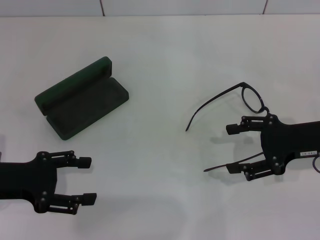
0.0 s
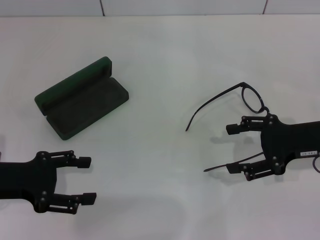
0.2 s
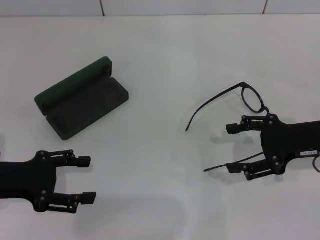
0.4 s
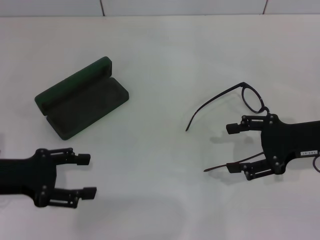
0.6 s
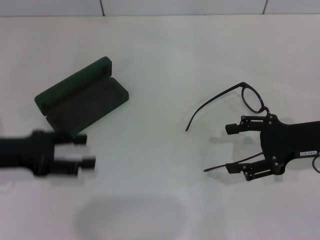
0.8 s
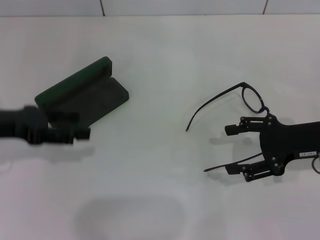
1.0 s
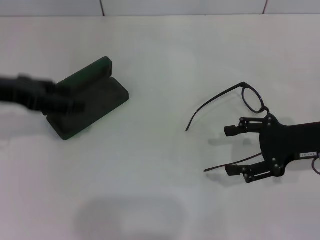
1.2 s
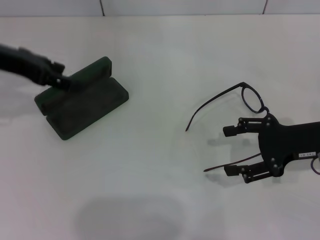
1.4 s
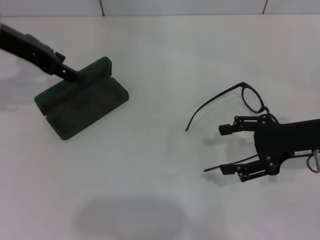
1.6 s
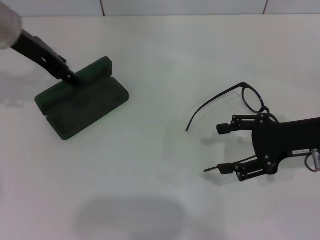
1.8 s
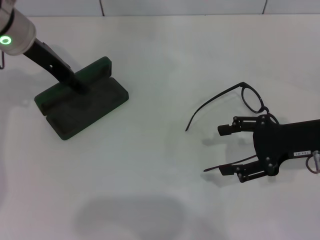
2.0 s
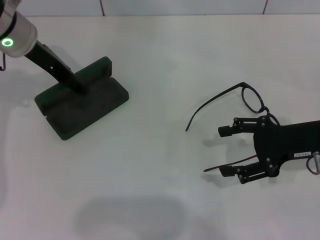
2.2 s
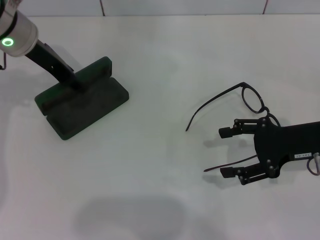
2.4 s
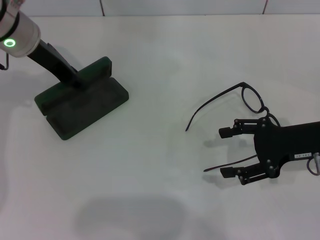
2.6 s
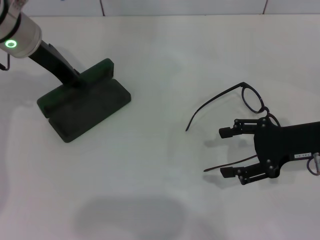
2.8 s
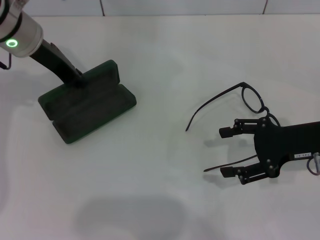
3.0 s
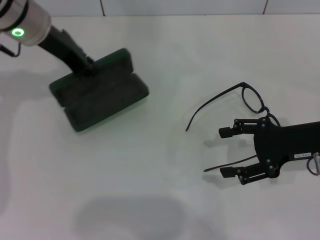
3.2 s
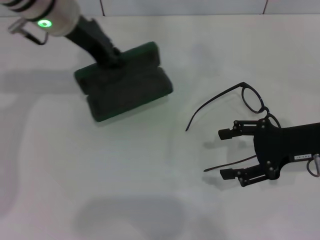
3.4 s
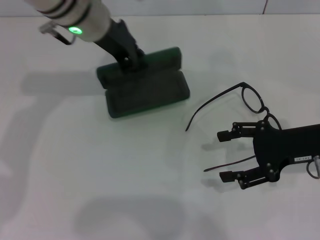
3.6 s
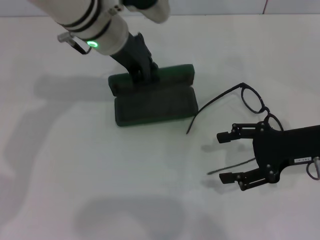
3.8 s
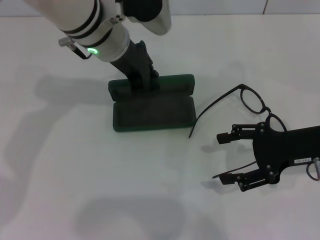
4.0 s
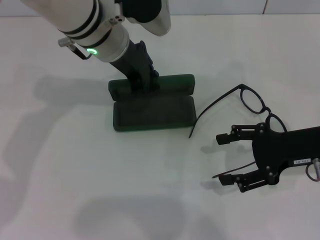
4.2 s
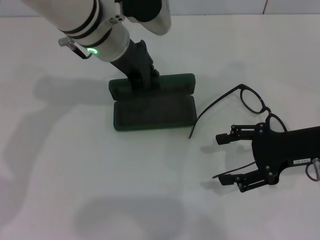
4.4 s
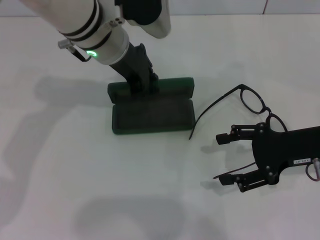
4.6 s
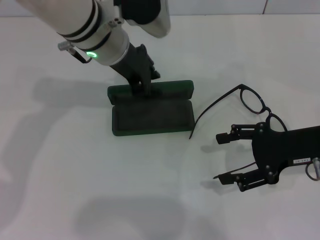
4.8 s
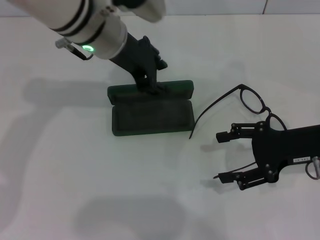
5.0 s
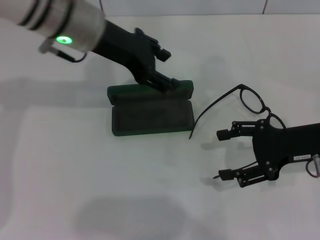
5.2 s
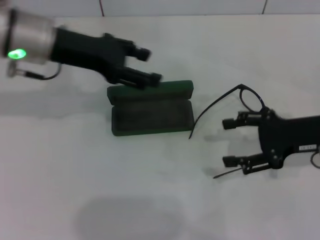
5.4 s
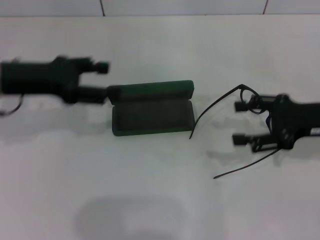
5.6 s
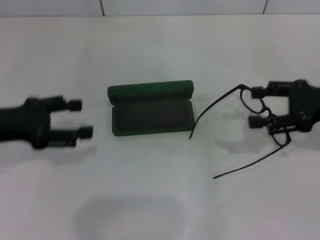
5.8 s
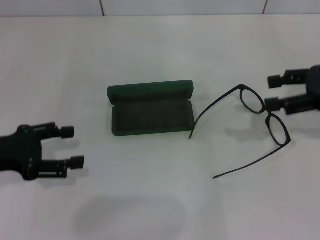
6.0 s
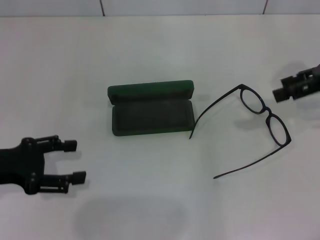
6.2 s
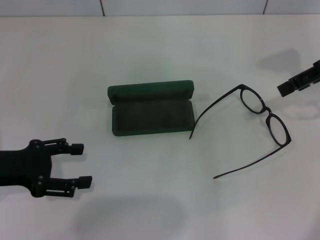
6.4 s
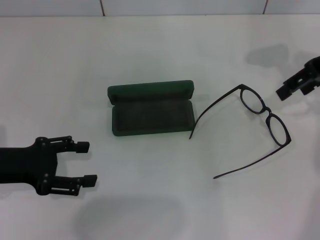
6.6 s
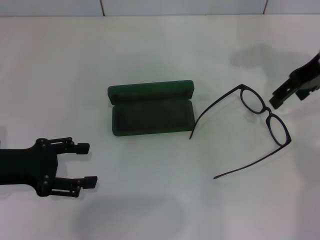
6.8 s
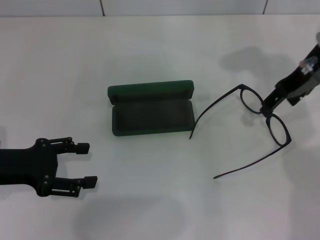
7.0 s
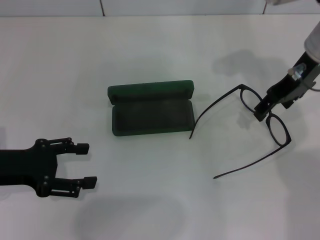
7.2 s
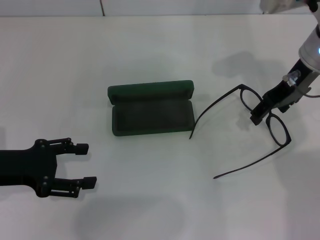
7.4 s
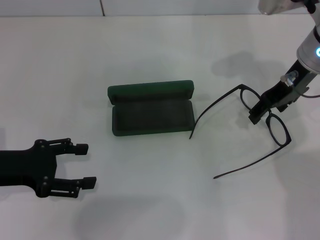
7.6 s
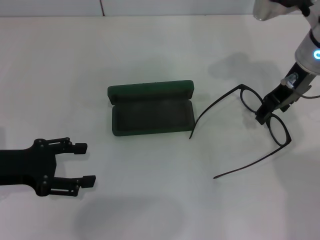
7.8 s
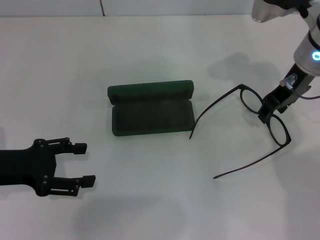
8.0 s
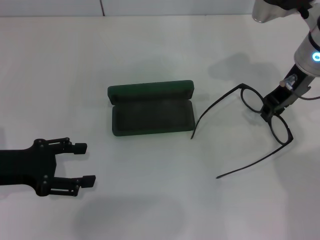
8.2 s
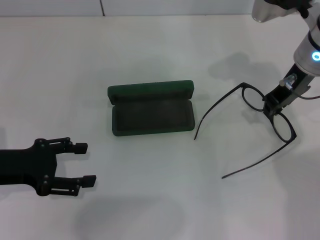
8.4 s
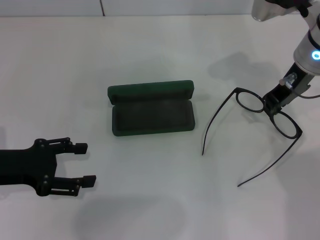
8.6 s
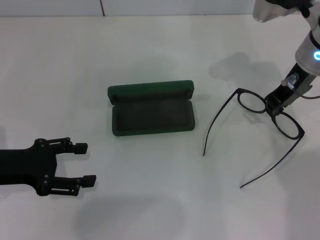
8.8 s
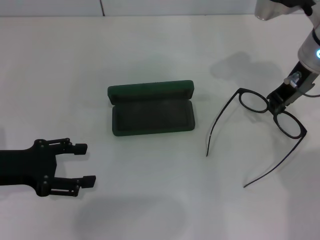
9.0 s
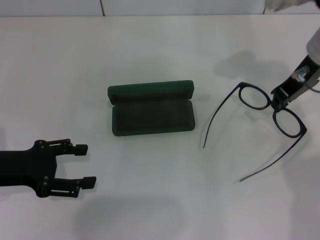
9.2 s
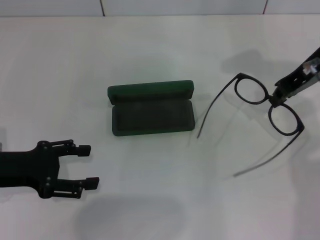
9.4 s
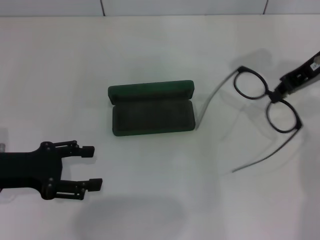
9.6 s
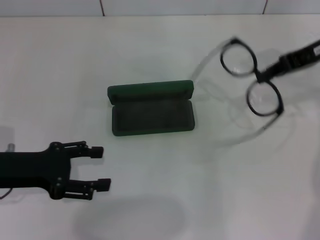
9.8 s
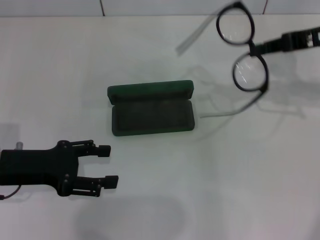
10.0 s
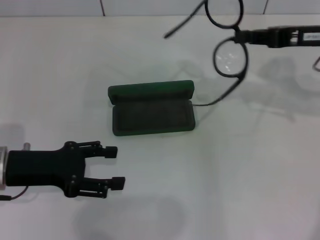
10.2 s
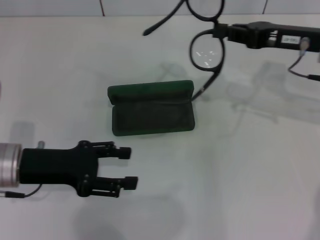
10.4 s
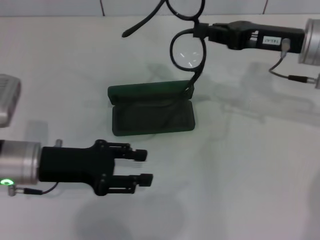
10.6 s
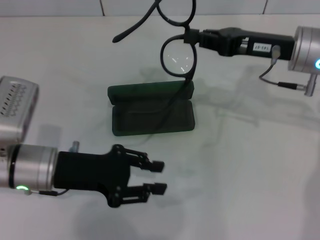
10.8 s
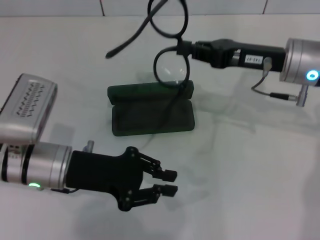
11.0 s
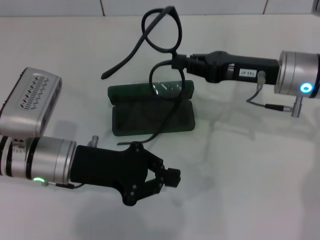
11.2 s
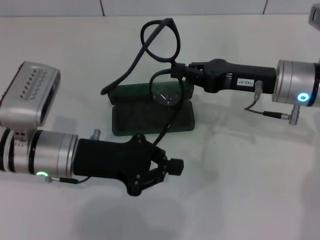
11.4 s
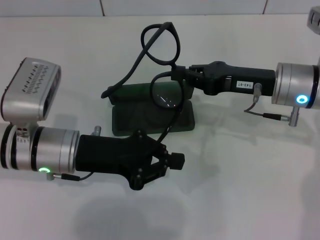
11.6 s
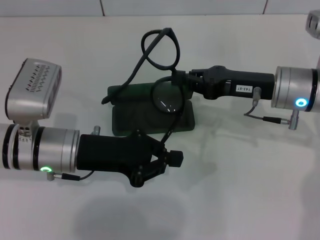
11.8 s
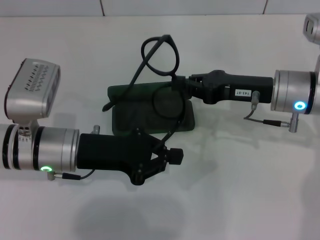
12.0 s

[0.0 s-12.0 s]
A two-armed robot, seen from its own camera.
Step, 0.0 to 2.6 s: Grab the glasses case with your left hand.
Step, 3.0 to 4.6 s: Place the glasses case in the center of the table with your left hand.
Step, 4.8 to 8.2 s: Grab the eyeglass frame with your right hand.
0.0 to 1.6 s: The left gripper shifts roughly 20 cm forward and upward.
1.6 to 3.0 s: The left gripper ends up about 5 cm from where it was, and closes up.
3.0 to 4.4 s: The left gripper goes some 10 cm to the right.
4.4 to 6.0 s: The right gripper travels upward and to the right by some 10 cm. Meanwhile the left gripper heads to the left and backward, covering some 25 cm, and opens its fingers.
6.0 to 7.6 s: The right gripper is displaced to the left and forward by roughly 15 cm.
7.6 to 9.0 s: The right gripper closes its fingers.
9.0 to 10.4 s: The left gripper travels to the right by roughly 5 cm.
10.4 to 12.0 s: The right gripper travels downward and to the left by some 10 cm. The left gripper is displaced to the right by some 5 cm, and closes up.

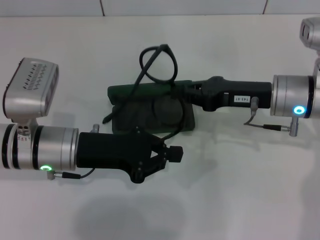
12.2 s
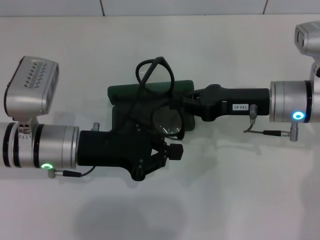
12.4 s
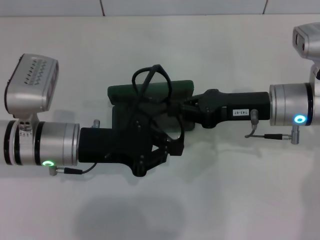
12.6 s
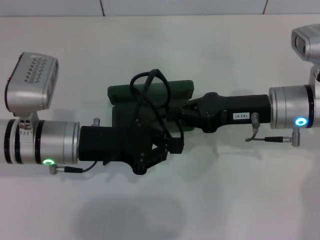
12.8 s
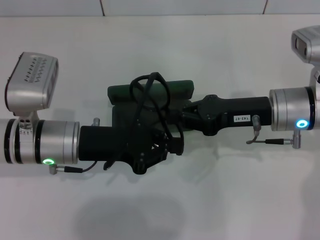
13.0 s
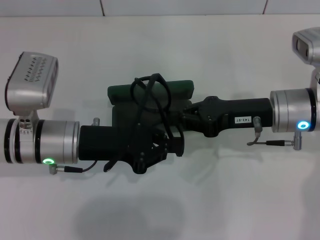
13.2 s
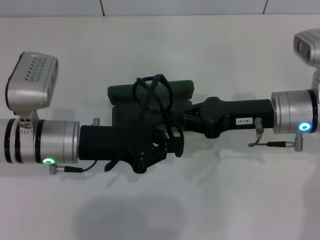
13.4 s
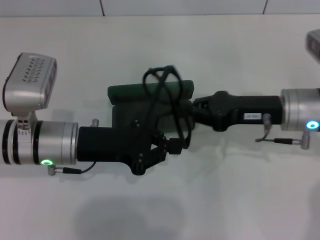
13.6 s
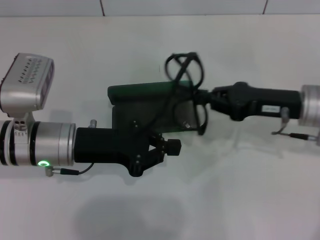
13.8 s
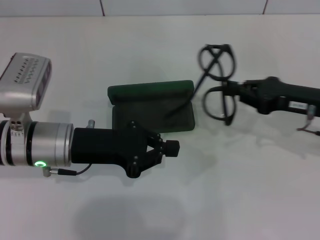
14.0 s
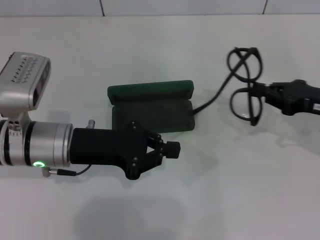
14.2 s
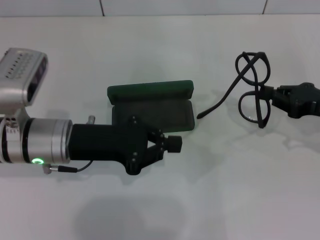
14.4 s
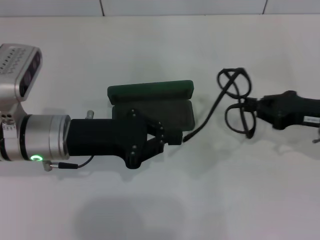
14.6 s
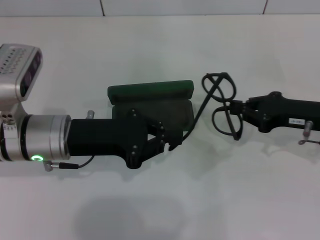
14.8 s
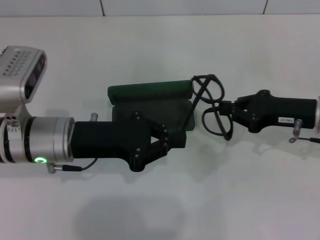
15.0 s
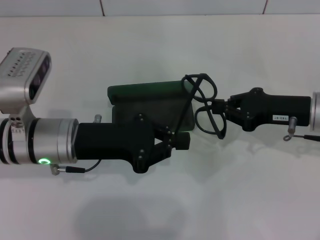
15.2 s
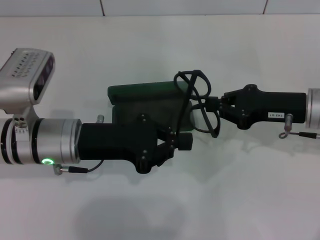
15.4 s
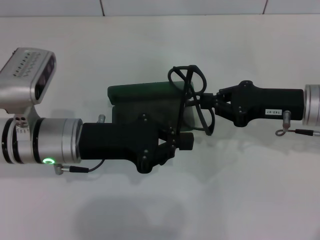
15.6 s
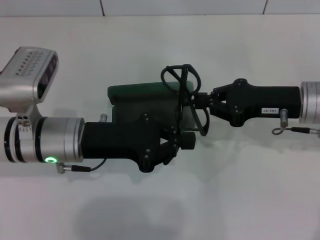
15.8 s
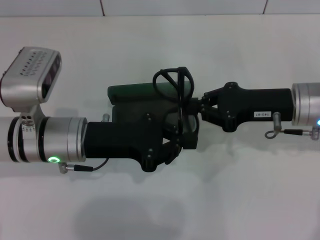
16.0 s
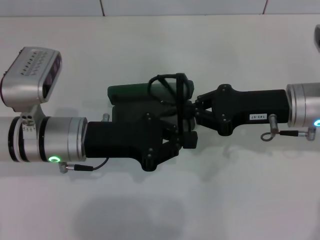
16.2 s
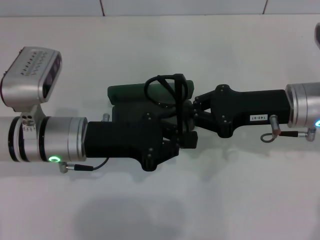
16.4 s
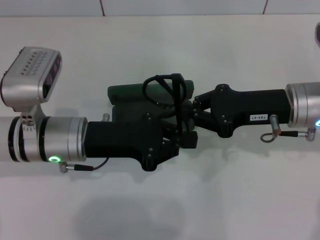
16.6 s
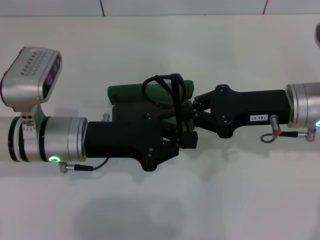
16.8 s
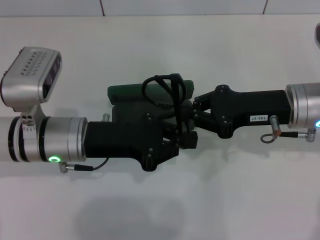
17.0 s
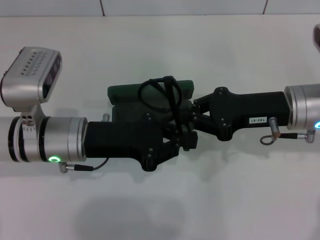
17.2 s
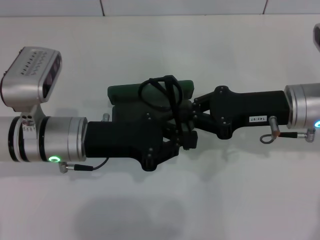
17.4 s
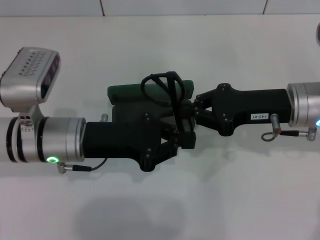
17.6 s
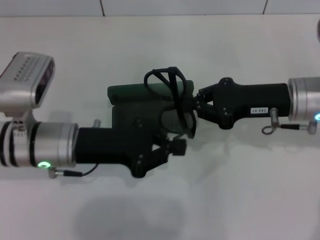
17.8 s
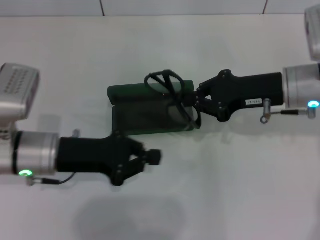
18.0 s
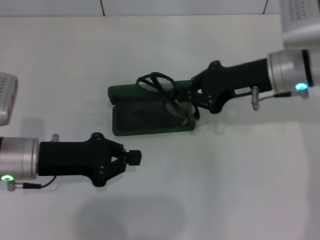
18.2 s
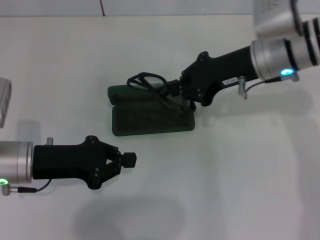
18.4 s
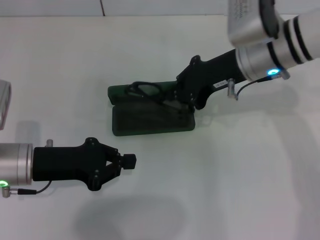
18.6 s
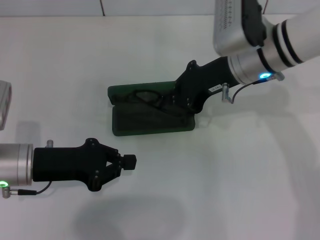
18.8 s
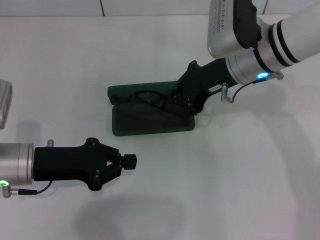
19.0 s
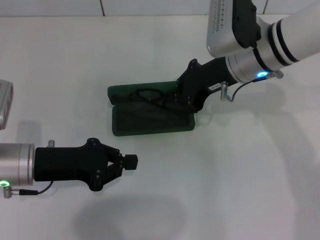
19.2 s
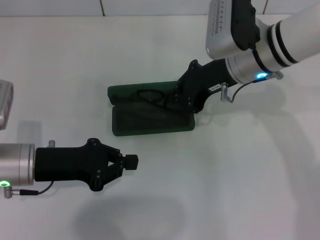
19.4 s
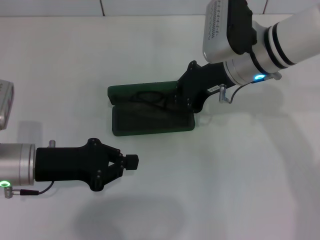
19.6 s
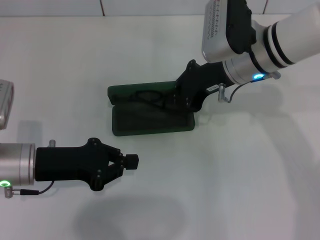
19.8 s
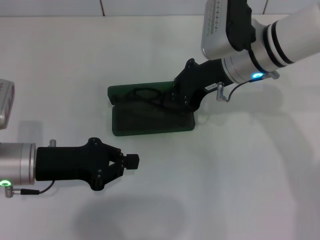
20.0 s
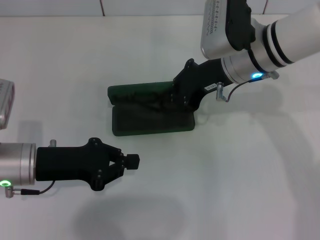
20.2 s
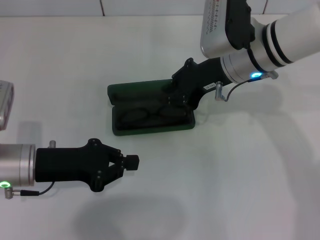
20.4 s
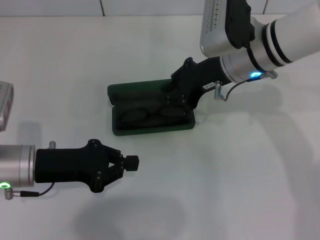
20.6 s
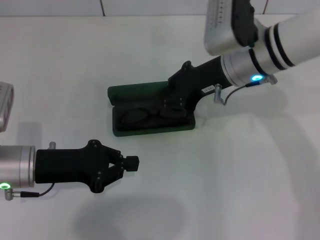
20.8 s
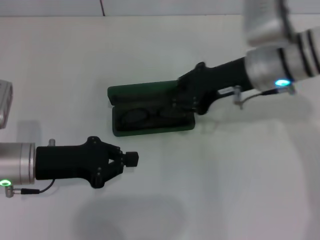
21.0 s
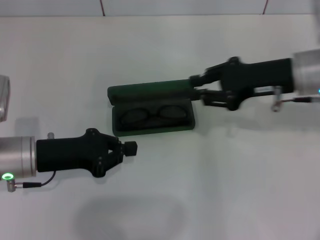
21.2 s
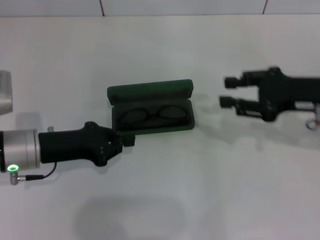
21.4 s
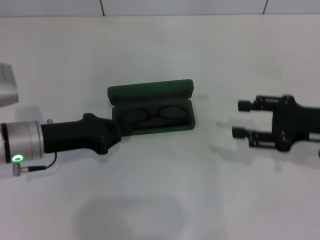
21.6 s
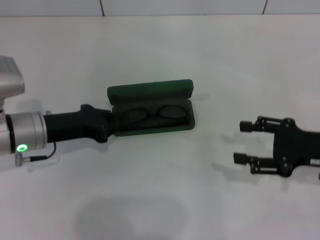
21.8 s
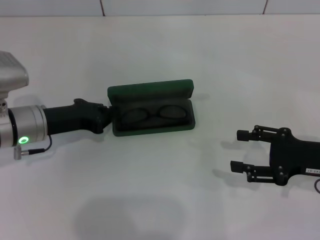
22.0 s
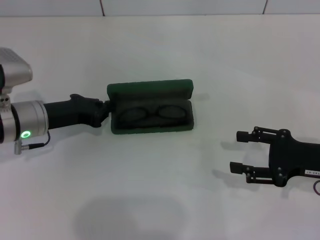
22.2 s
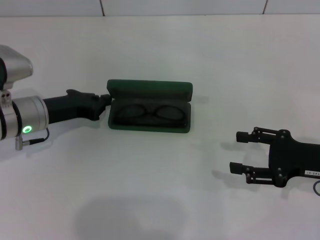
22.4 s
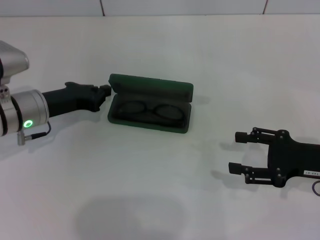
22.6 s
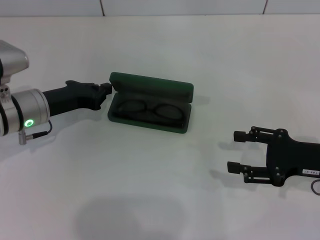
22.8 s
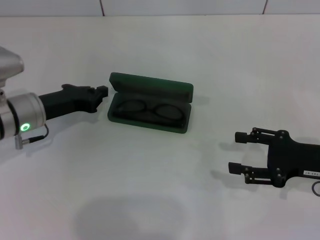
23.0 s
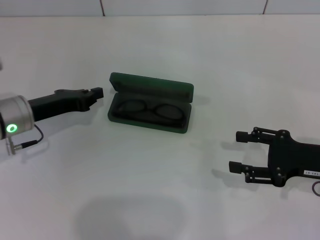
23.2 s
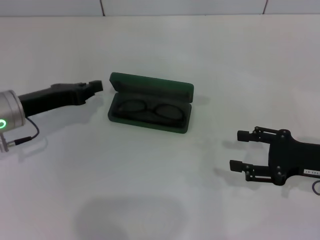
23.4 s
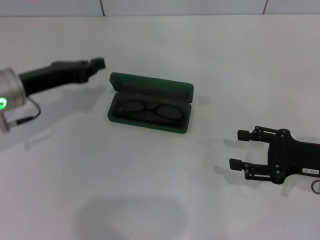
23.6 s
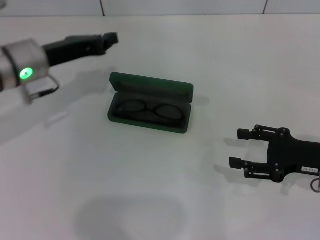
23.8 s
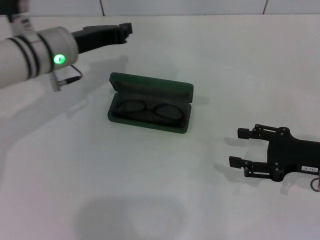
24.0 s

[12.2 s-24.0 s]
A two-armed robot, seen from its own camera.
Step, 12.2 to 17.4 s: Fold the frame with your left hand.
Step, 17.6 to 20.4 s: Put the glasses into the case with your right hand.
12.2 to 13.6 s: The grippers move only a little.
15.2 to 16.6 s: The right gripper moves some 5 cm.
16.6 to 18.2 s: The right gripper moves approximately 5 cm. The left gripper heads to the left, covering some 5 cm.
18.2 to 19.6 s: The right gripper travels to the left by roughly 5 cm.
19.6 to 21.0 s: The grippers make only small movements.
21.0 to 22.6 s: The right gripper goes some 20 cm to the right, backward and downward, and opens its fingers, while the left gripper goes about 10 cm forward.
22.6 to 24.0 s: The left gripper heads upward and to the right, covering roughly 10 cm.
